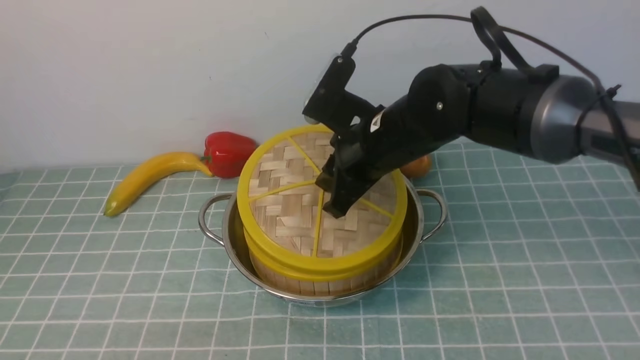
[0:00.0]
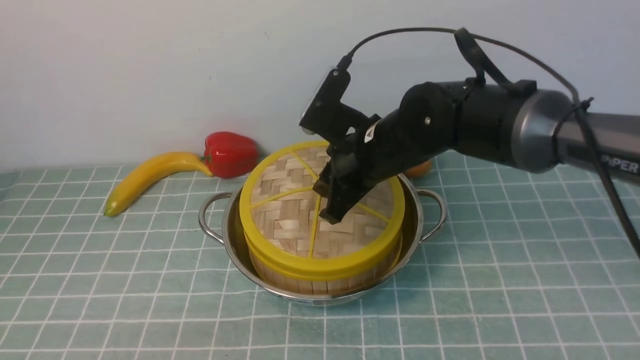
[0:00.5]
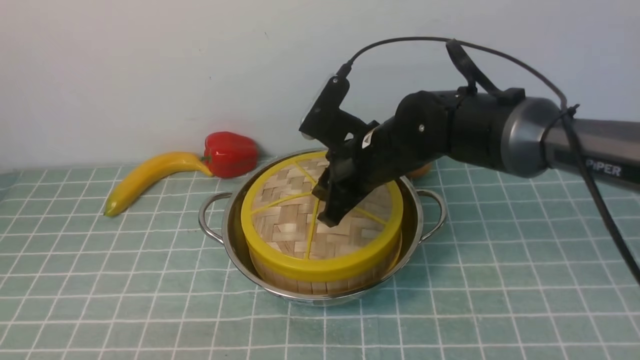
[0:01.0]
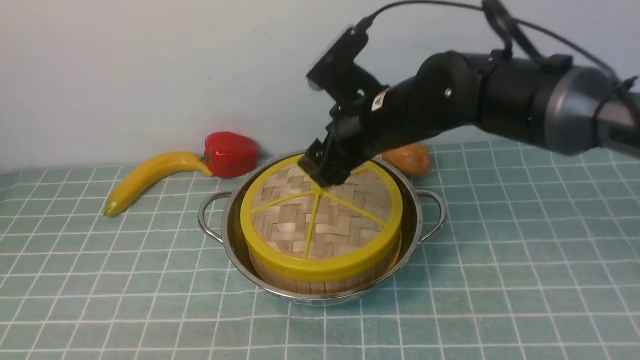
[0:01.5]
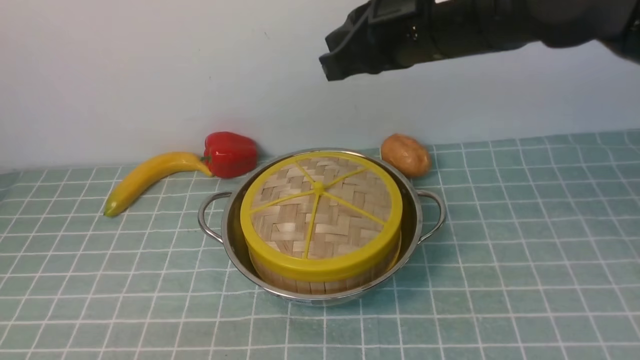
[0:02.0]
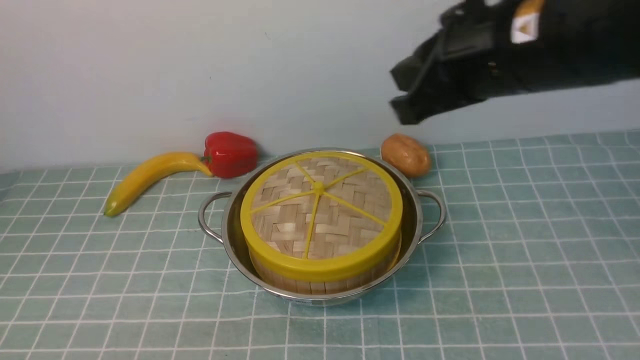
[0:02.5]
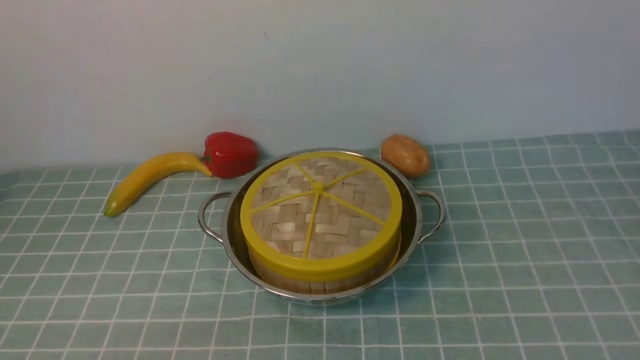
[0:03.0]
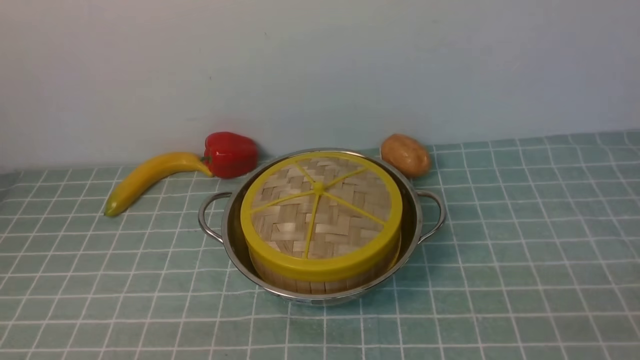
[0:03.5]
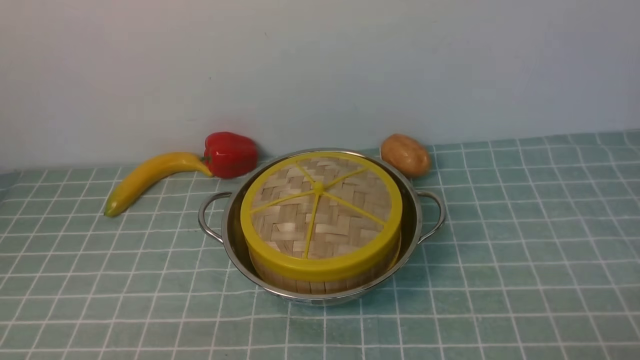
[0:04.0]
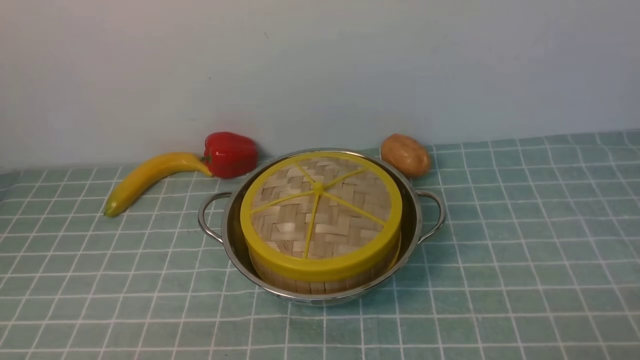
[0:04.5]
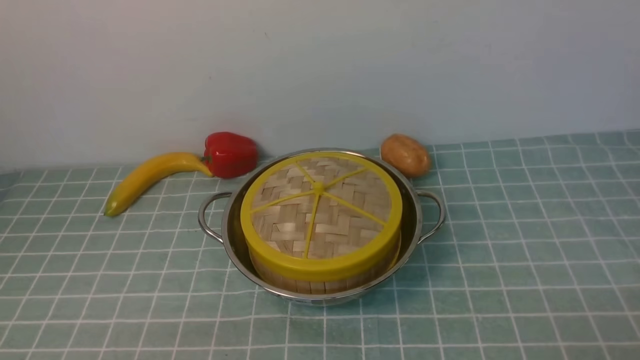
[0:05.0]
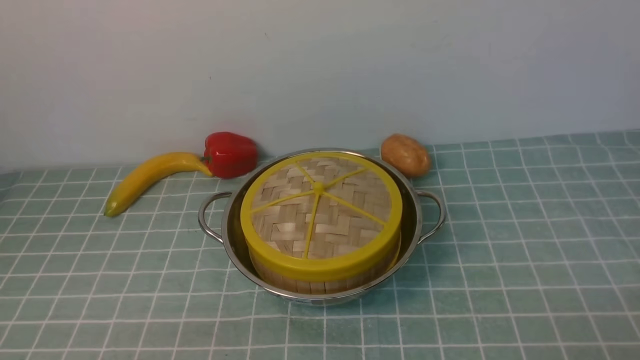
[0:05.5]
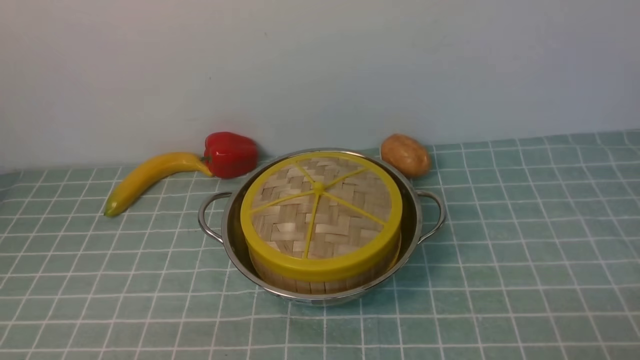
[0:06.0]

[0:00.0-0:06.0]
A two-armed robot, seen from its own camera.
Task of the whole recording: place the steamer in the pot on the blue tablecloth, and put the lid on the steamer.
Step, 0:00.0 to 0:02.0: use the right arm to place the steamer lid on the steamer.
0:00.0 to 0:02.0: The right gripper goes about 15 cm upward, and closes.
0:02.0 to 0:04.0: The right gripper shifts roughly 40 cm backward, to the right and downward, and opens.

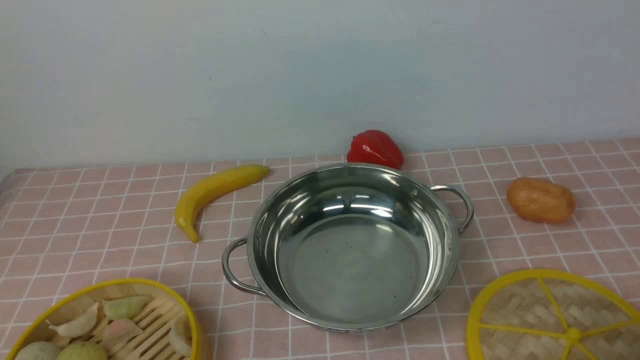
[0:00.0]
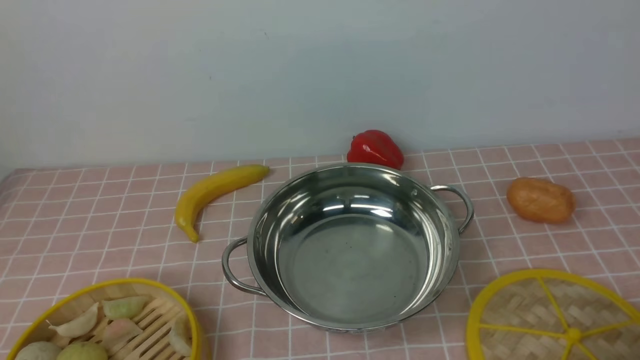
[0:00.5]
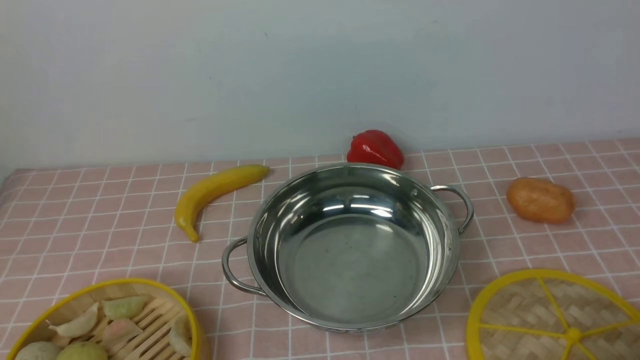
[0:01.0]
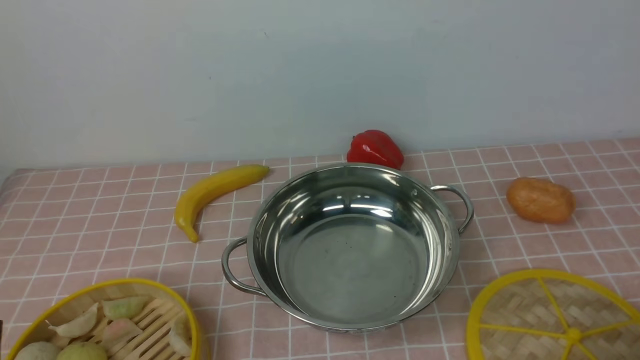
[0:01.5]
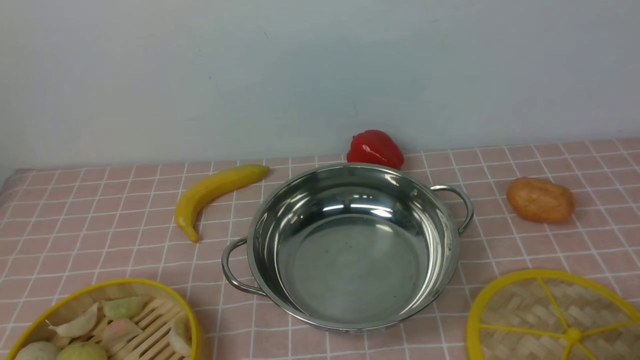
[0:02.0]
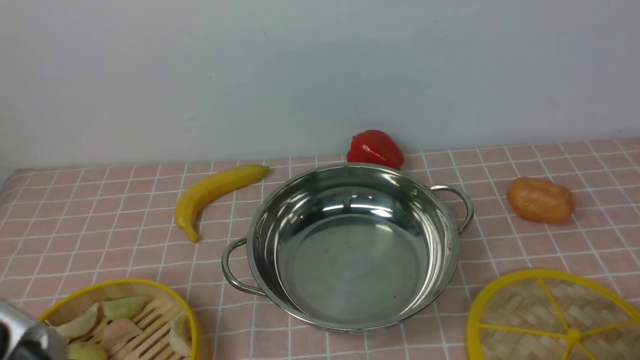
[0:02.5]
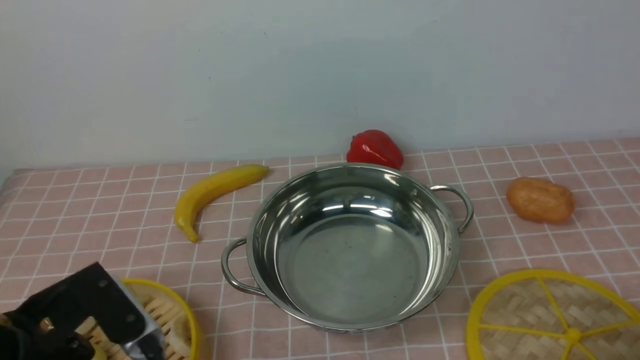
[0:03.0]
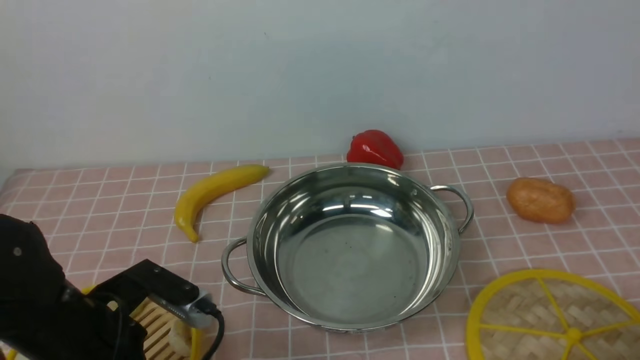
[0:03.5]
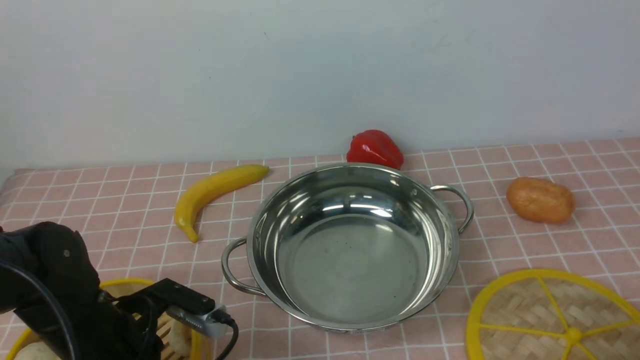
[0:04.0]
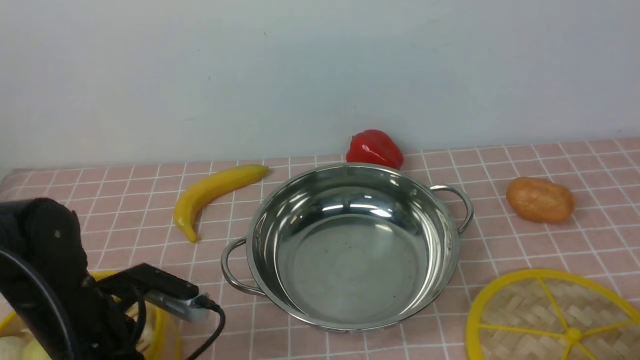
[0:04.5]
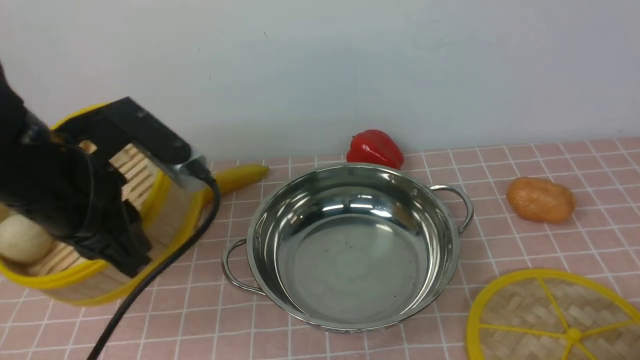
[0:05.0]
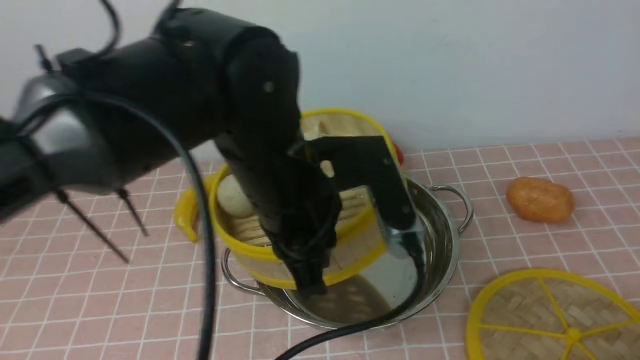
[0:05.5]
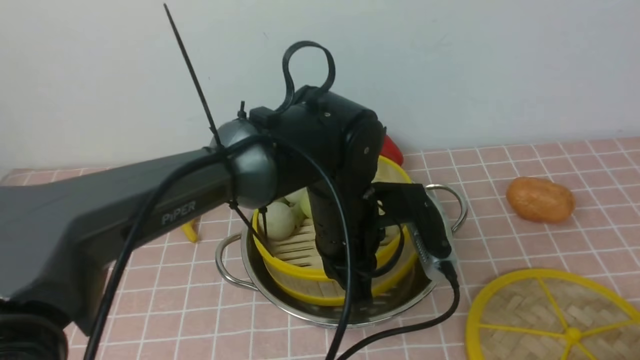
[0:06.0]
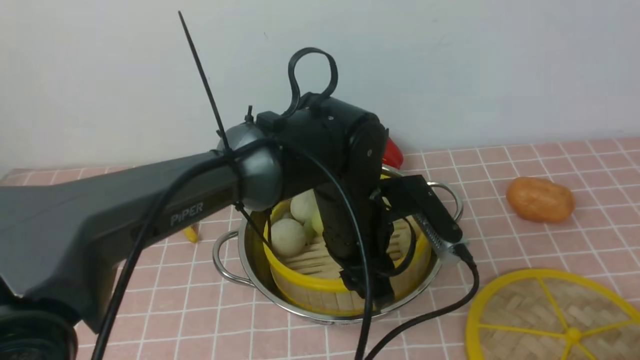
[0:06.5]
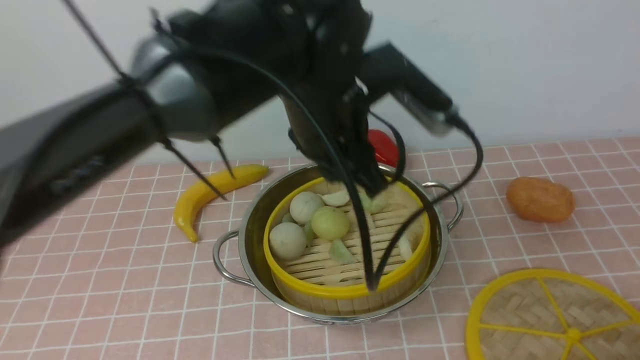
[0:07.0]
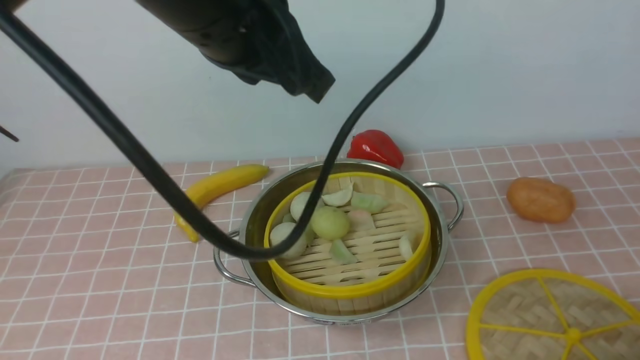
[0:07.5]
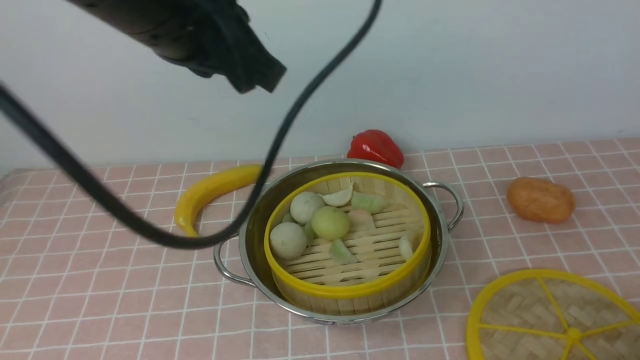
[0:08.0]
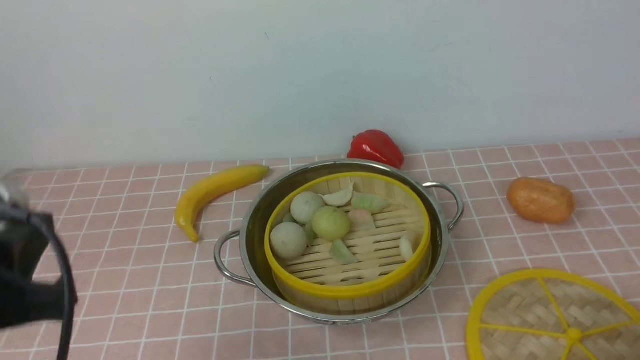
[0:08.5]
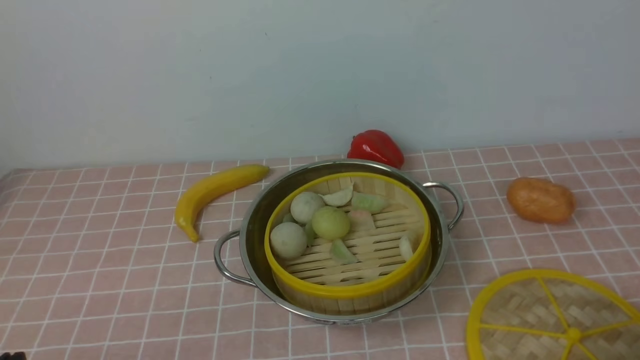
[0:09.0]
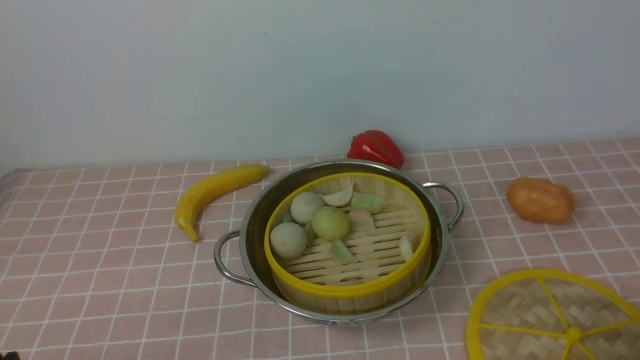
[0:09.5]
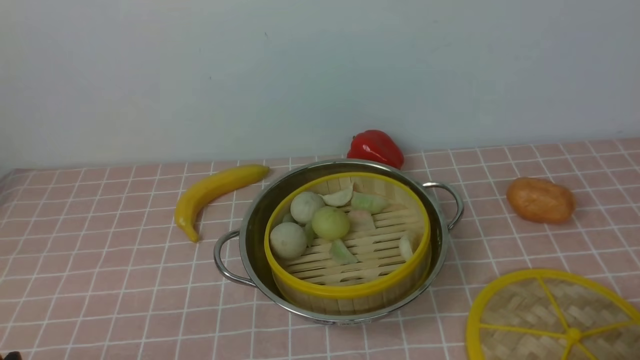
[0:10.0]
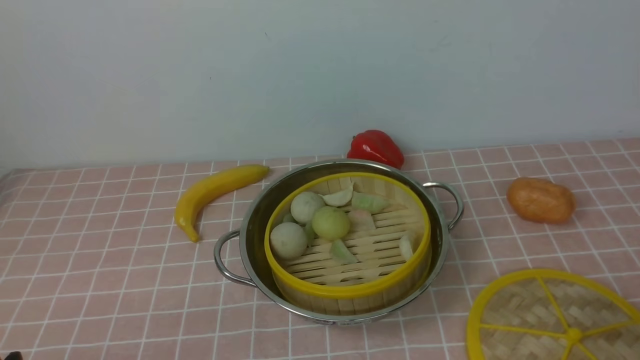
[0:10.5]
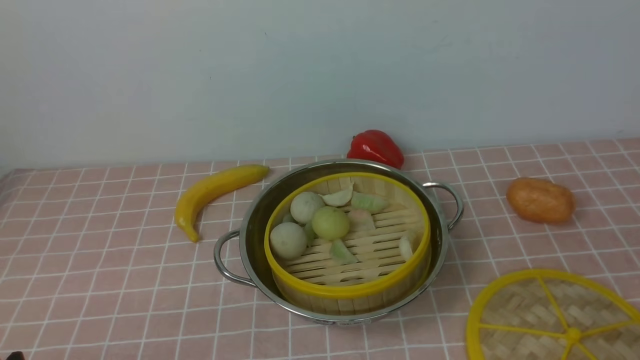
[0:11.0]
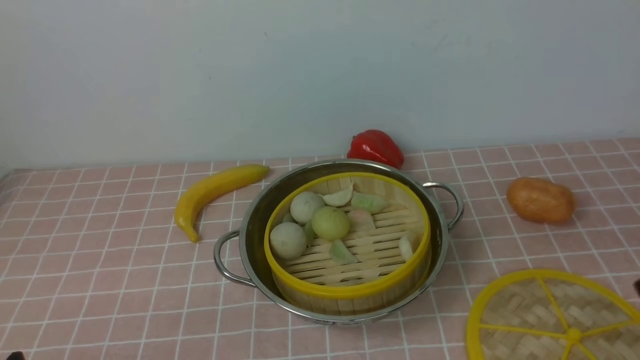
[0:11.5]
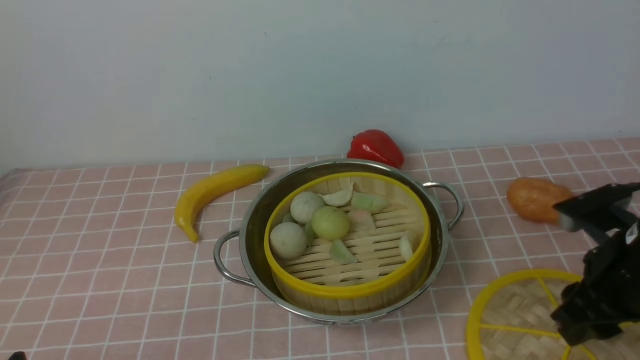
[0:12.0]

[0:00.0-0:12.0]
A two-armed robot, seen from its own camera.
Task of the whole recording: place the steamer in the pot on the pink tablecloth, and put the lid on the steamer.
Step, 0:00.0 to 0:04.5: use the left arm to lift the steamer closest to it.
Step, 0:05.0 to 0:06.5: use the left arm to put the steamer into the iron steamer pot in the middle.
0:02.0 to 0:04.0: The left gripper heads forward and downward, covering about 20 cm.
0:04.0 to 0:06.0: The left gripper heads to the right and forward, covering some 25 cm, and closes its fingers.
0:06.0 to 0:08.0: The left gripper is displaced upward and to the left by approximately 25 cm, and opens, then closes again.
0:08.0 to 0:10.0: The left gripper moves downward, backward and to the left, some 35 cm.
0:10.0 to 0:12.0: The right gripper is displaced forward by approximately 20 cm.

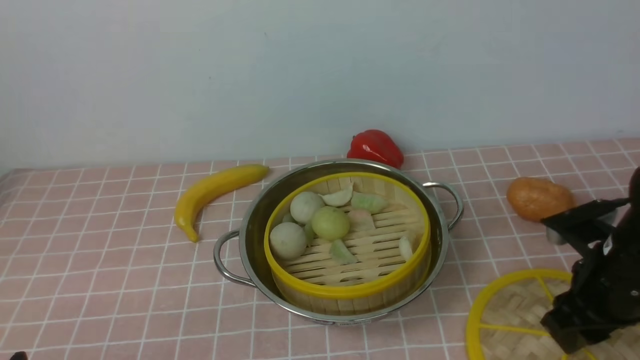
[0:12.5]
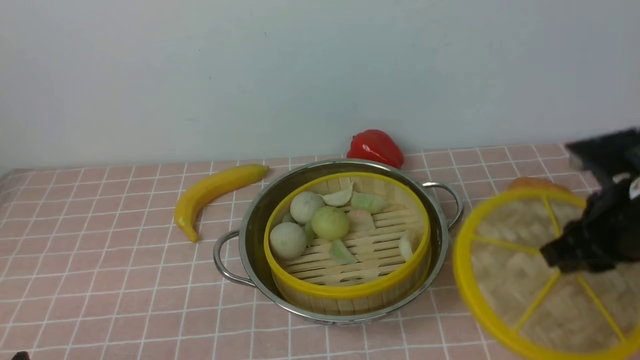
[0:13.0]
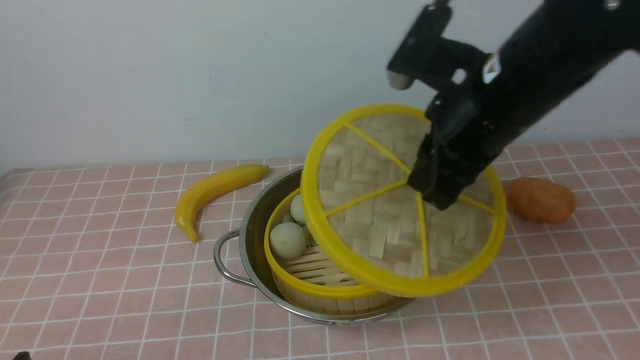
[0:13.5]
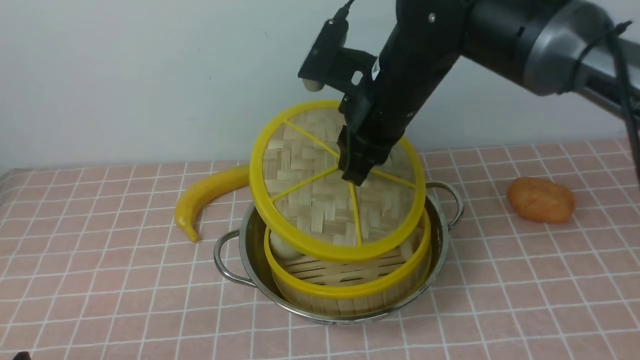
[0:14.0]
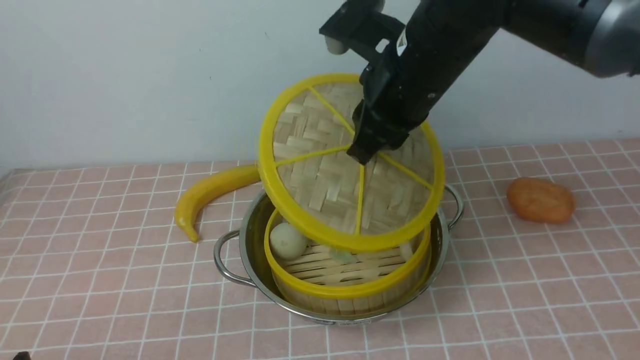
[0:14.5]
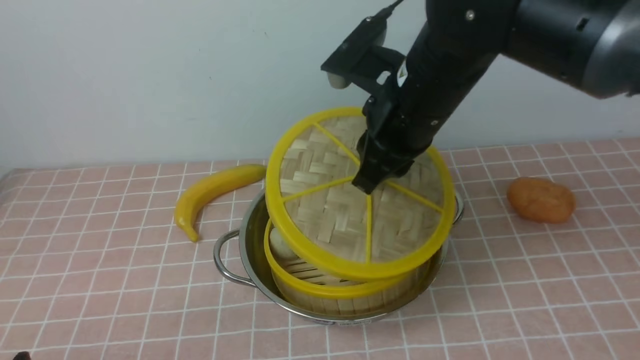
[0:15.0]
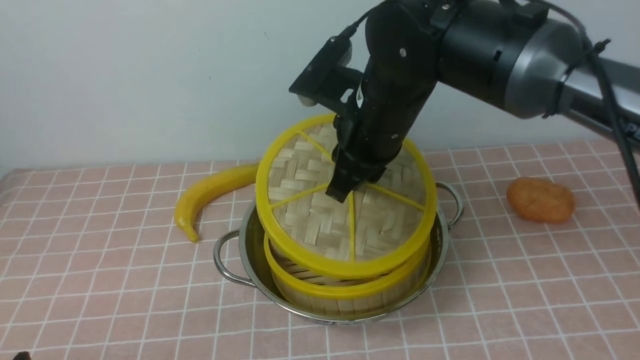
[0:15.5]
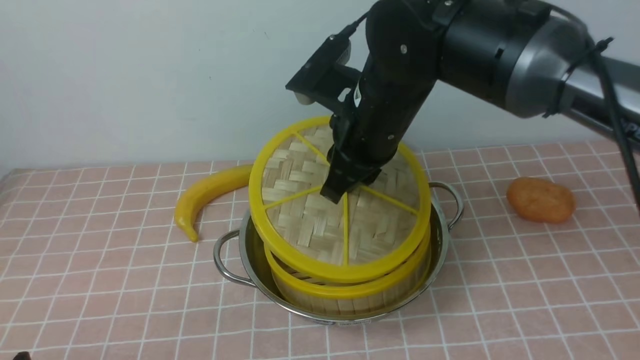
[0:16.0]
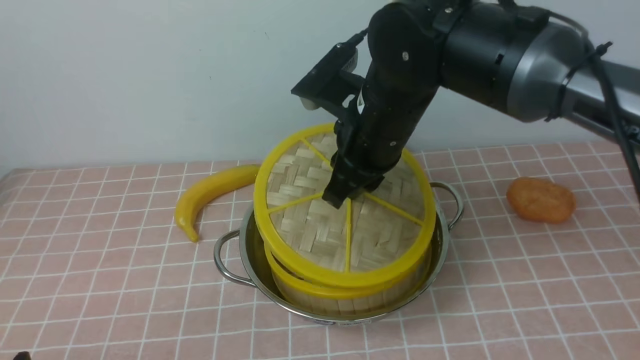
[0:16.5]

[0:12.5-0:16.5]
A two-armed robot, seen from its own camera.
Task of the whole recording: place the steamer in the pot on the pink tablecloth, and put the lid on the steamer.
0:12.5 to 0:14.5: The right gripper shifts about 25 cm to the left, upward and forward, and closes its fingers.
0:14.5 to 0:16.5: The grippers make only small movements.
